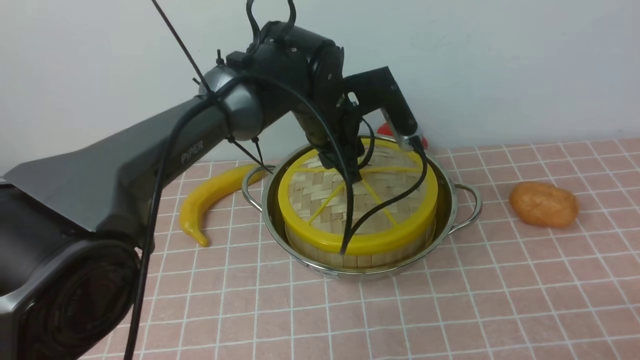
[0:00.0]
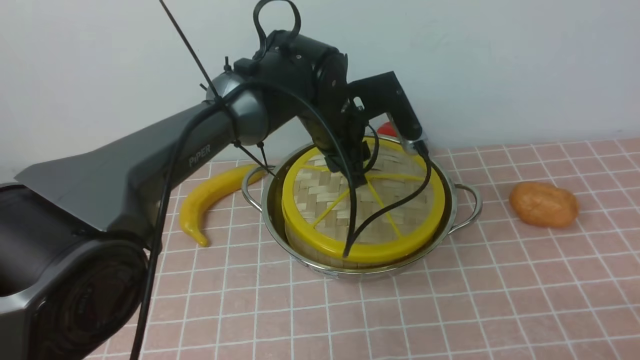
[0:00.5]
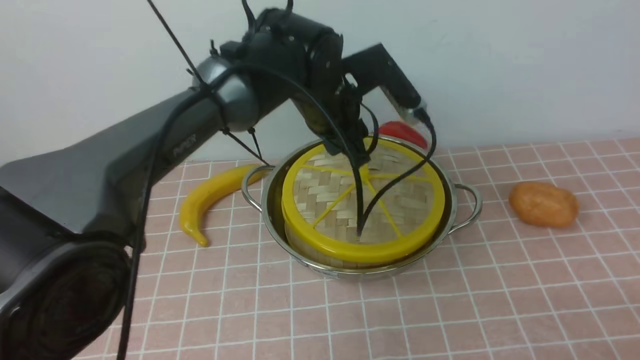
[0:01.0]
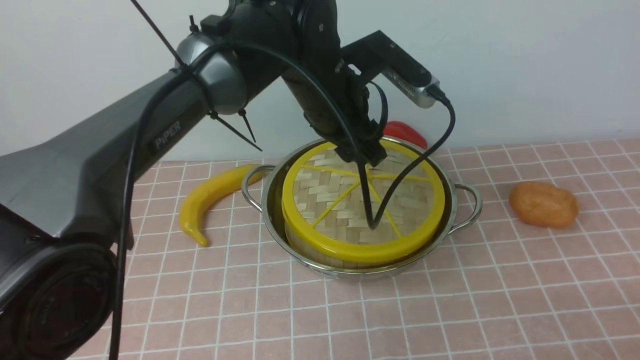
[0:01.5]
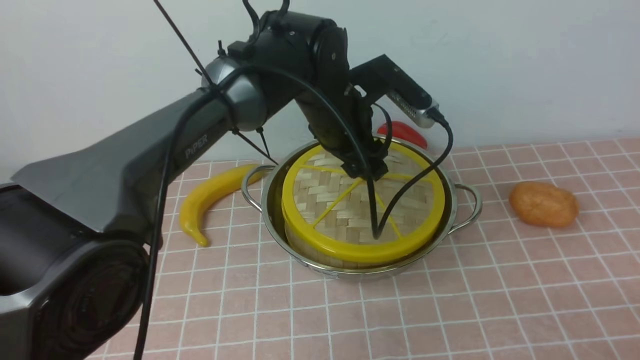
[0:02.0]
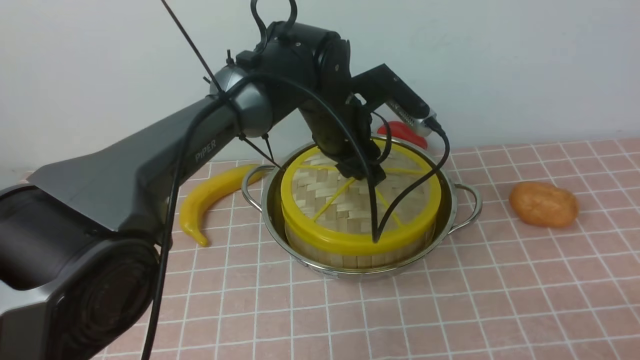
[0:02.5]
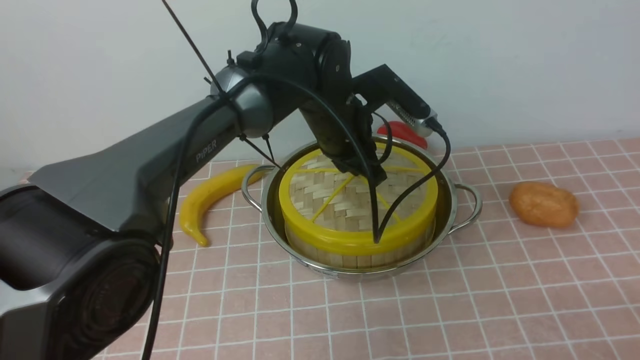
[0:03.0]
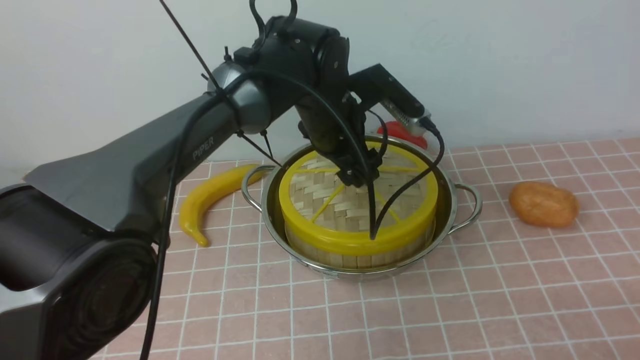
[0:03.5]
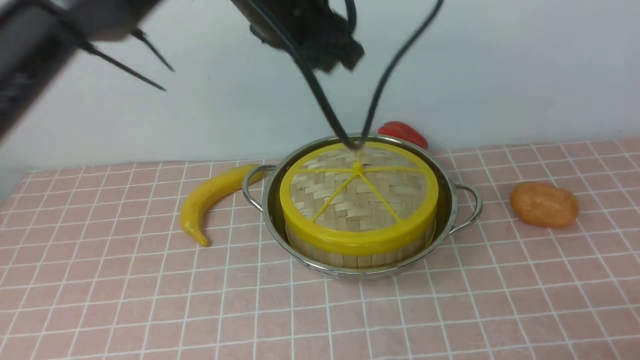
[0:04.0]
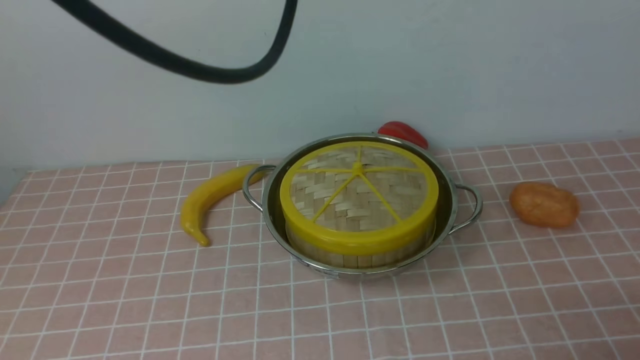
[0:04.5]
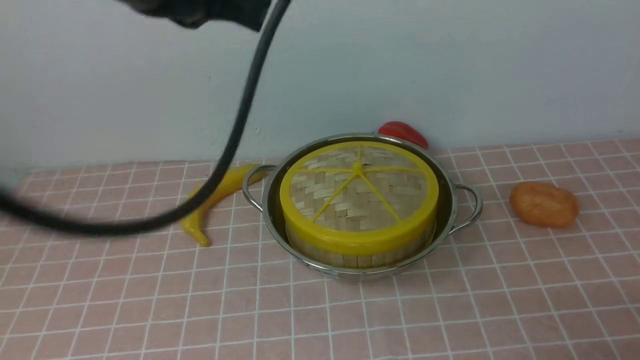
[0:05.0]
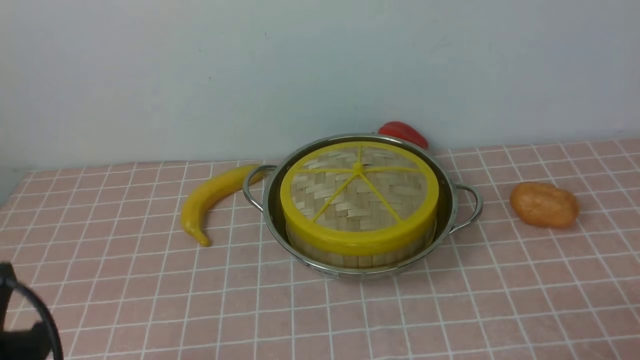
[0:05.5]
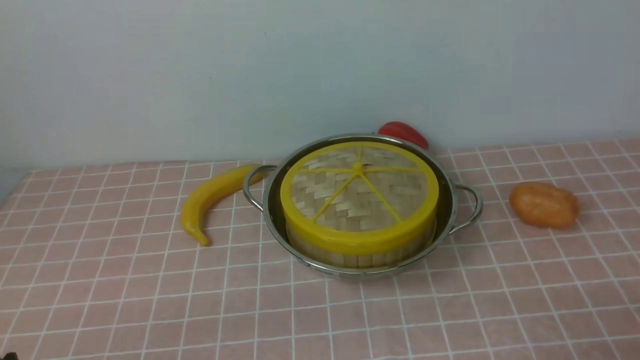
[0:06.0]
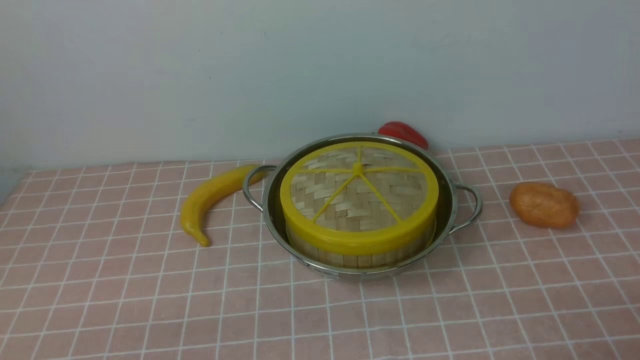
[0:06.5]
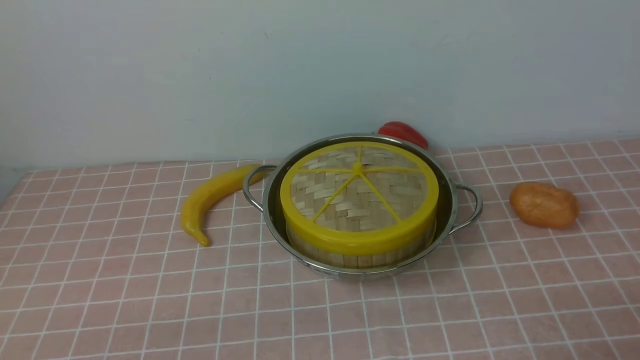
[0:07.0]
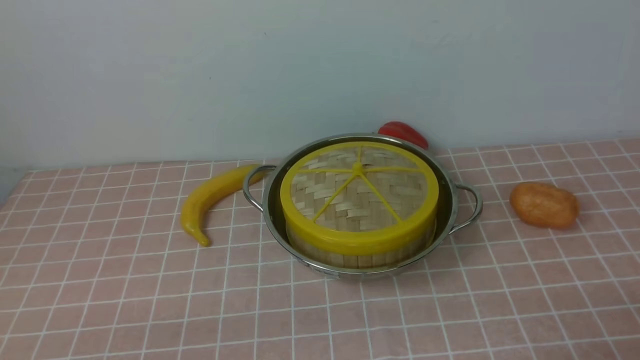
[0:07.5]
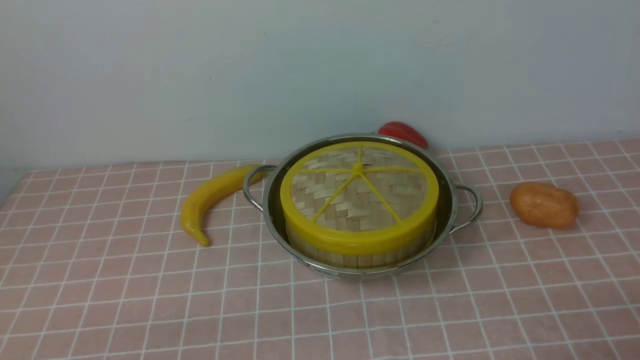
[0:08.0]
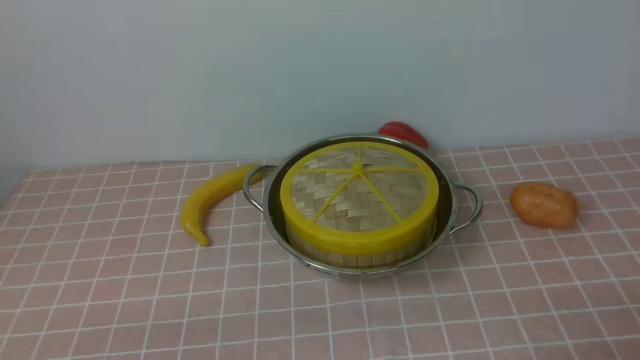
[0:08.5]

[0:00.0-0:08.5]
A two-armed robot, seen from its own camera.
Task of the whole recording: place the steamer in the pot on the pink tablecloth, and put the lid on the steamer.
Step, 0:00.0 to 0:03.5: use the left arm to place the steamer lid on the steamer.
0:00.0 to 0:02.0: The grippers move only a little.
0:02.0 to 0:04.0: The left gripper travels upward by roughly 10 cm, and closes, then reopens.
0:04.0 to 0:06.5: The left gripper moves backward, to the left and downward, some 40 cm, and closes its fingers.
0:06.5 to 0:08.5: Both grippers stay put.

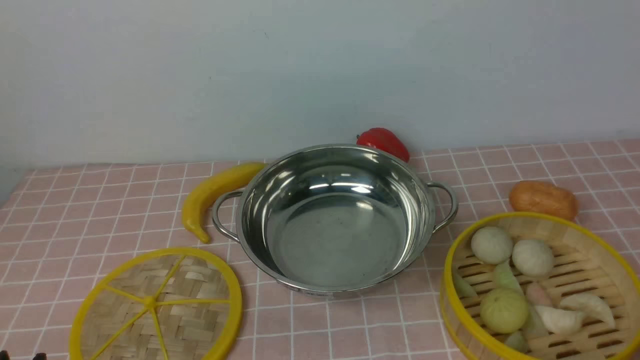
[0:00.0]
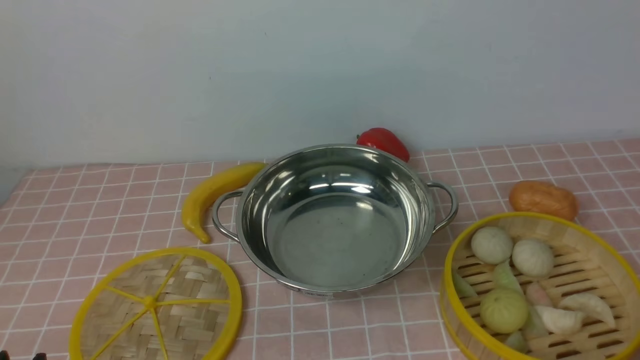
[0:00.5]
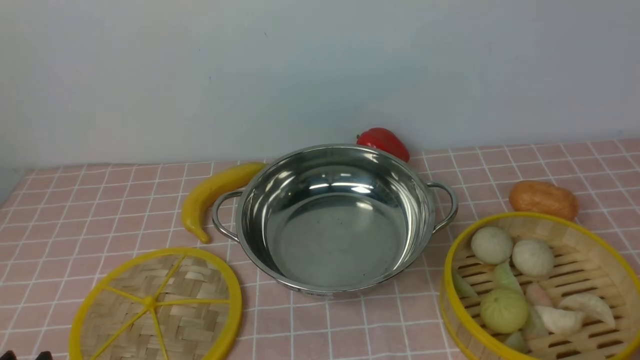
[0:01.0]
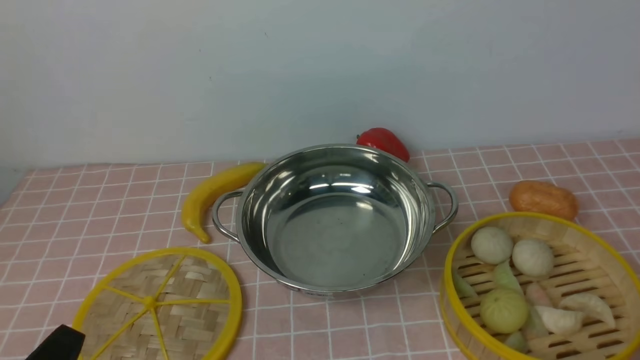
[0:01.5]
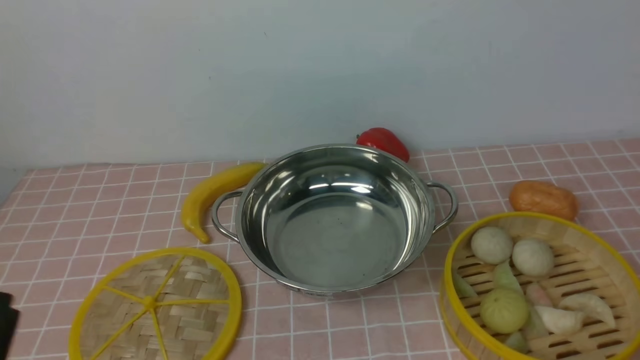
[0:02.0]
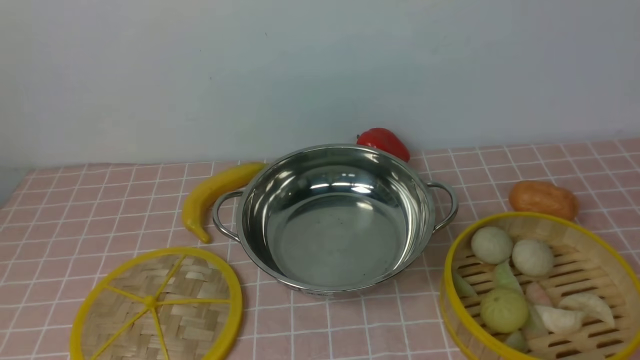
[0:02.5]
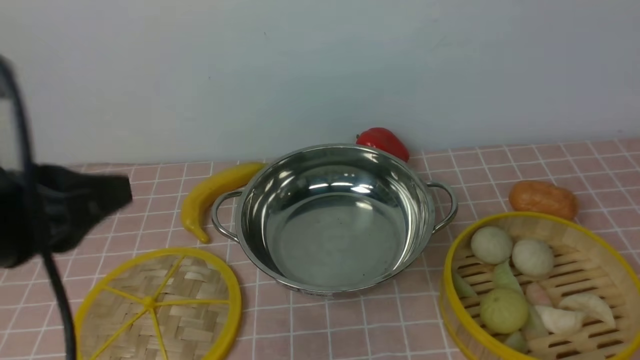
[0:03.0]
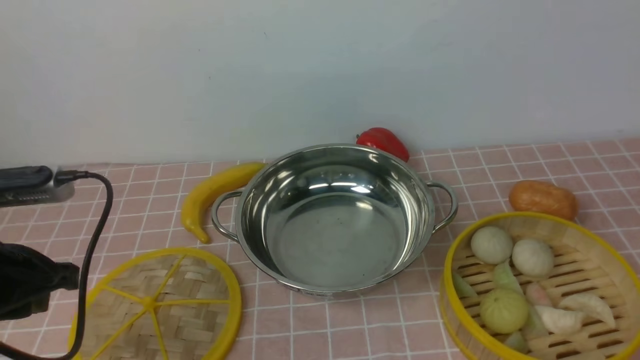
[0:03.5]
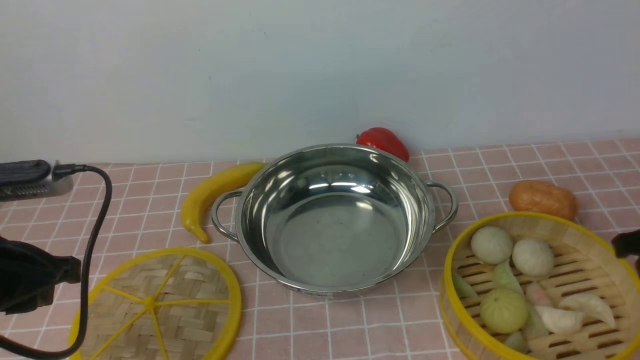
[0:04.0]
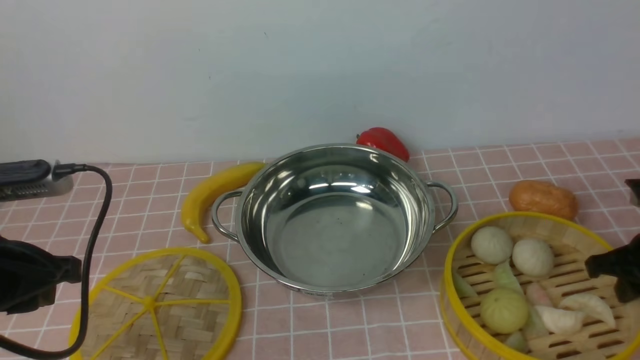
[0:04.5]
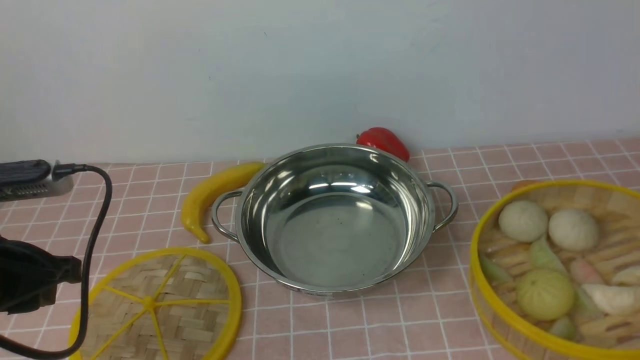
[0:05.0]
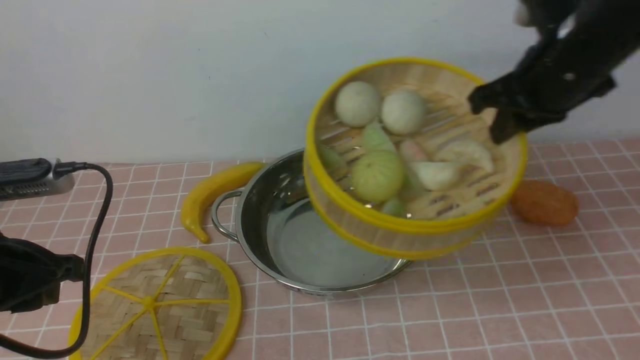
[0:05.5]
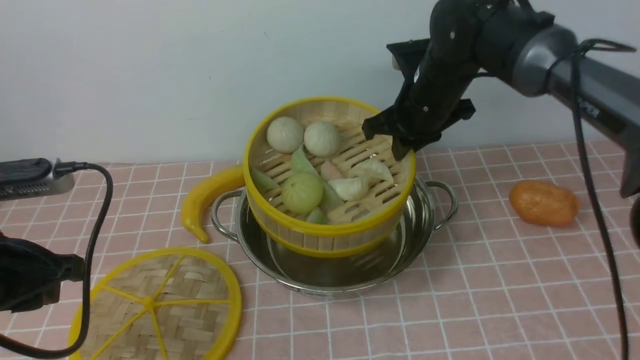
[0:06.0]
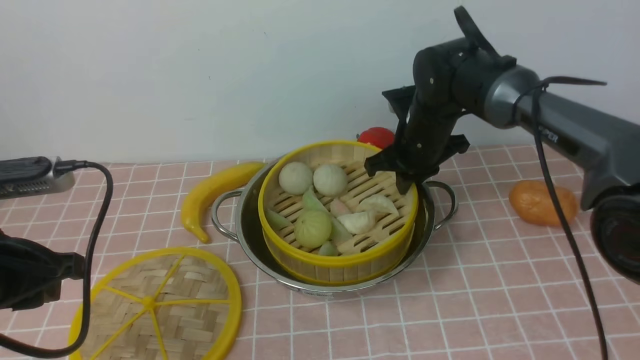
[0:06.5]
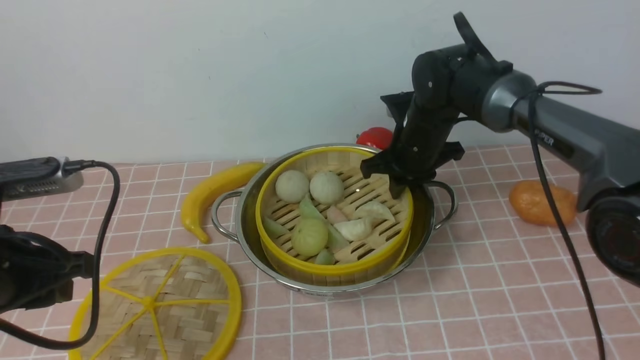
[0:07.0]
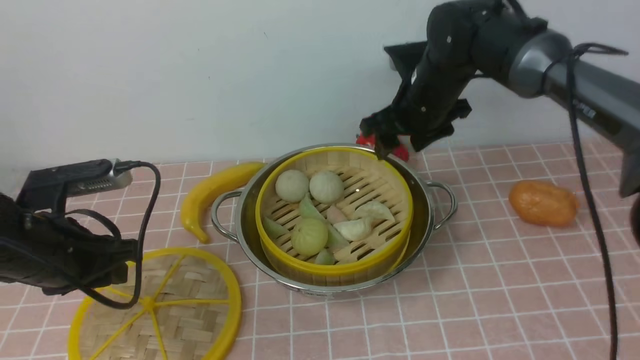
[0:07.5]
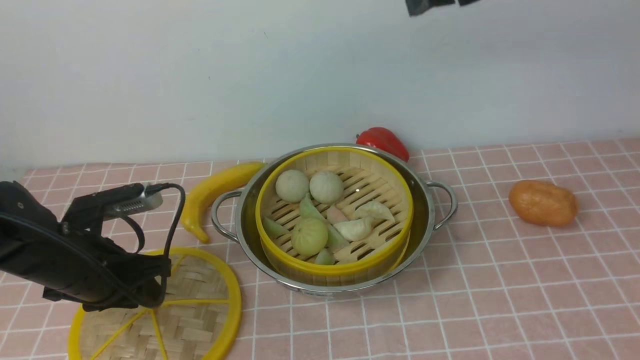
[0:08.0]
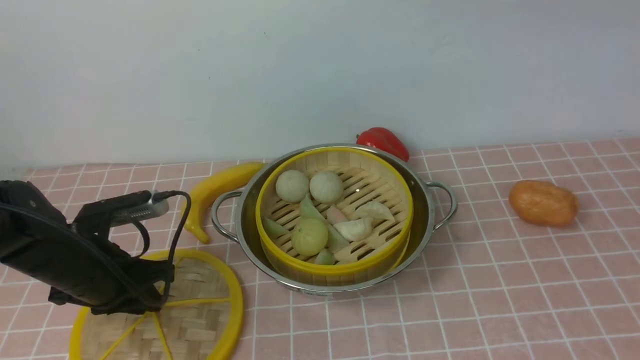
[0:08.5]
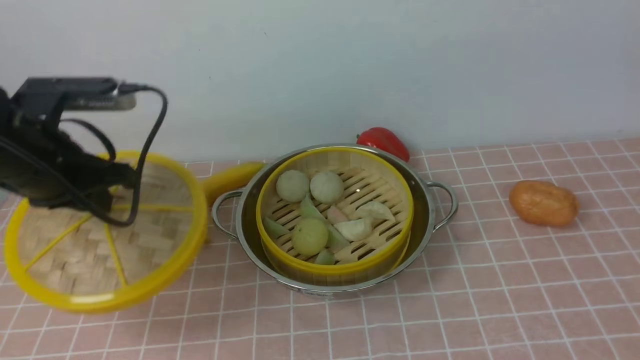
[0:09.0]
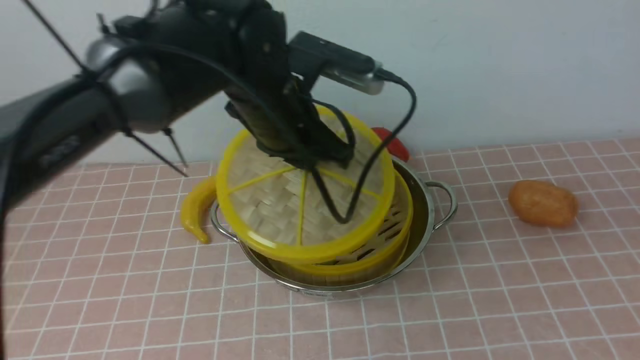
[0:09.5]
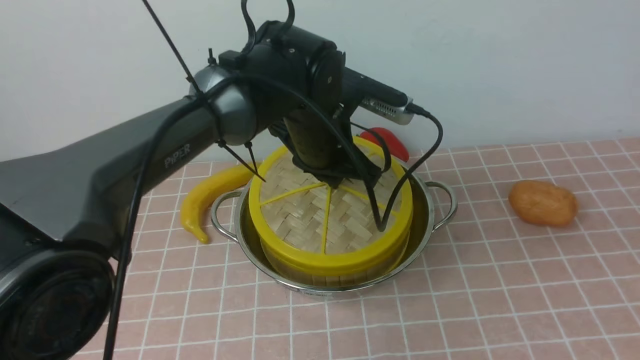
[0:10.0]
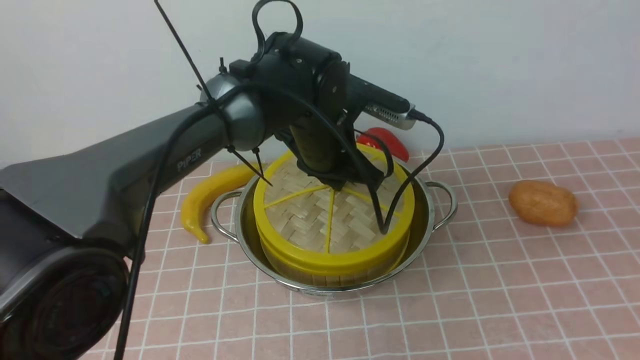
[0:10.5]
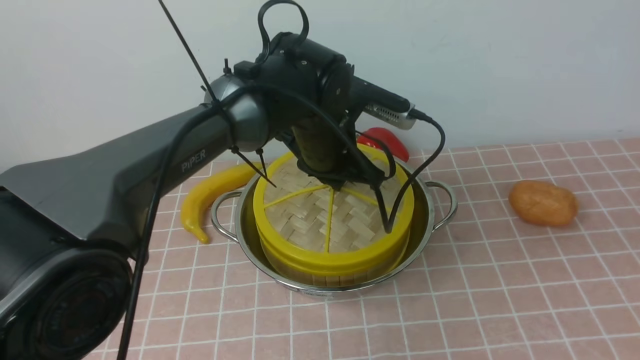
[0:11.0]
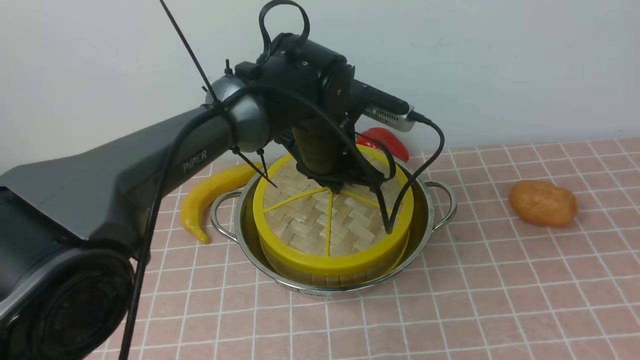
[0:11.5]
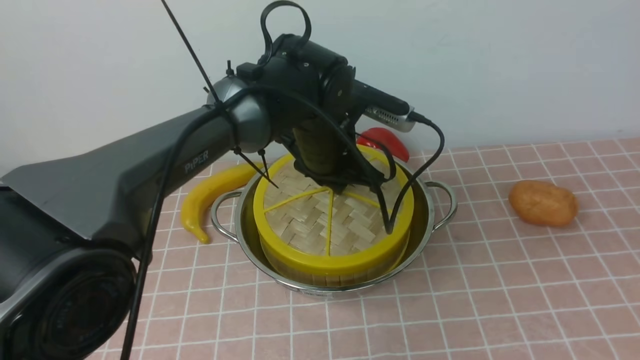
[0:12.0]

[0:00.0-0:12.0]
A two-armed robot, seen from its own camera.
Task of the whole recording: place the steamer in the pot on the pink tablecloth, and put the lid on the steamer.
Step, 0:00.0 to 0:04.5: use the right arm to lift the steamer closest to it.
Step, 0:05.0 to 0:07.0: use the right arm to put the steamer into the iron steamer pot in the middle.
Step, 0:07.5 to 0:08.5: use the left arm to lift the lid of the steamer.
0:02.0 to 0:04.0: The left gripper heads forward, covering roughly 15 cm.
0:04.0 to 0:06.0: The right gripper is displaced to the left and forward by roughly 30 cm, and closes up.
0:06.0 to 0:08.0: The left gripper heads downward and forward, covering approximately 15 cm. The right gripper moves upward and backward, about 20 cm, and opens its fingers.
0:08.0 to 0:10.0: The left gripper goes about 25 cm to the right and forward; the right gripper travels backward and to the right by roughly 35 cm.
0:10.0 to 0:12.0: The grippers move only a little.
